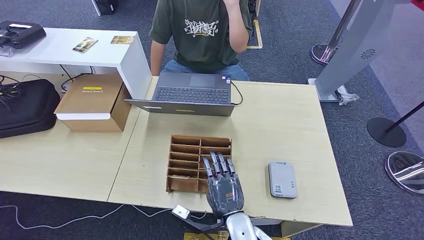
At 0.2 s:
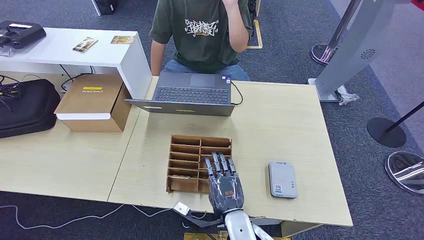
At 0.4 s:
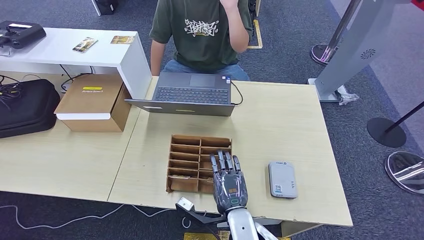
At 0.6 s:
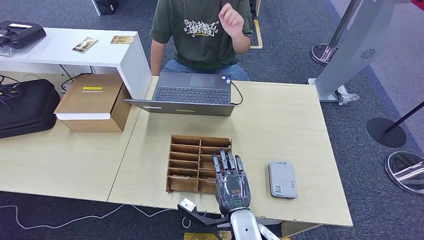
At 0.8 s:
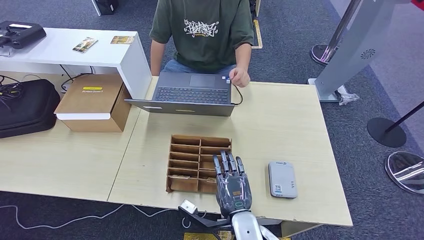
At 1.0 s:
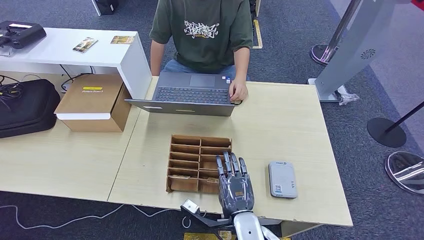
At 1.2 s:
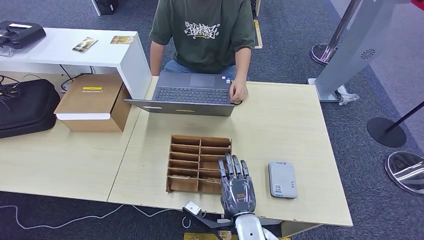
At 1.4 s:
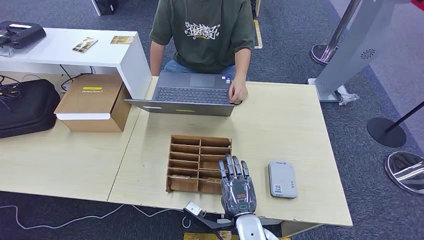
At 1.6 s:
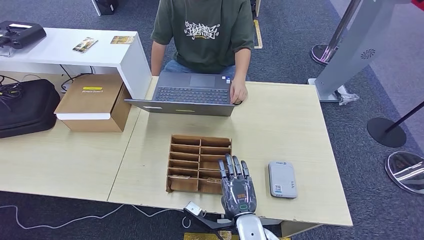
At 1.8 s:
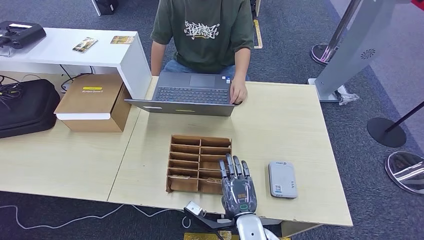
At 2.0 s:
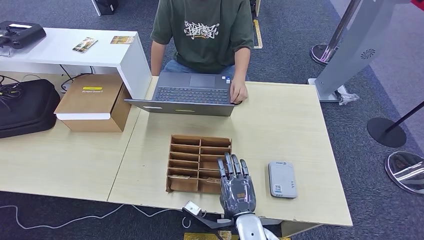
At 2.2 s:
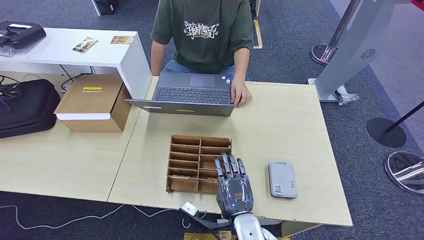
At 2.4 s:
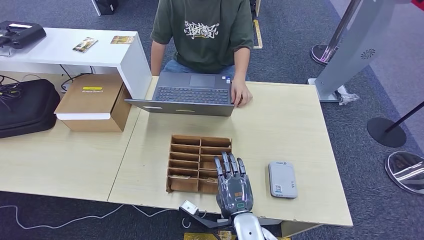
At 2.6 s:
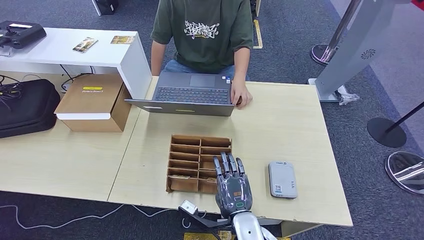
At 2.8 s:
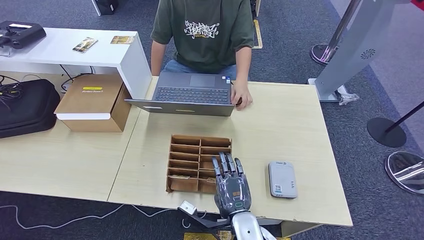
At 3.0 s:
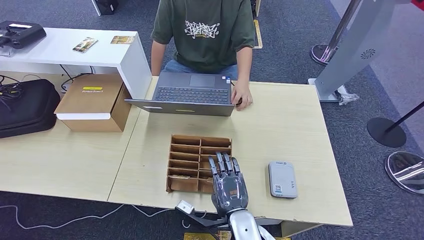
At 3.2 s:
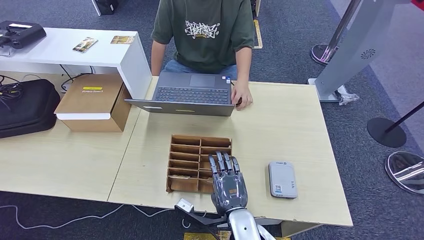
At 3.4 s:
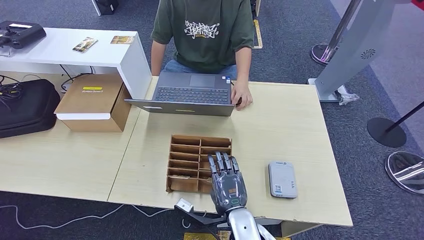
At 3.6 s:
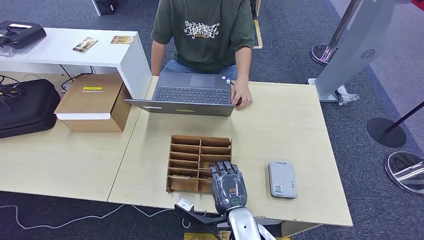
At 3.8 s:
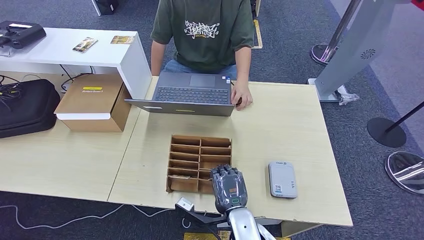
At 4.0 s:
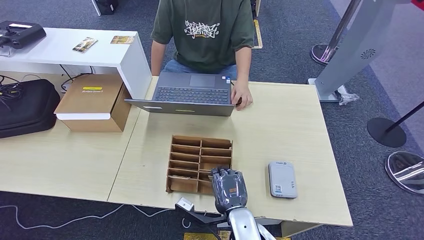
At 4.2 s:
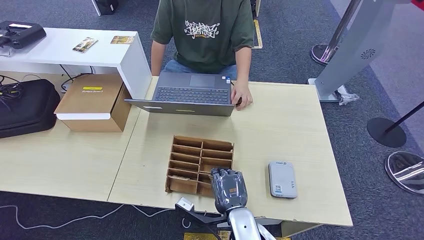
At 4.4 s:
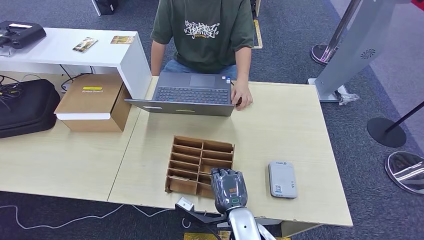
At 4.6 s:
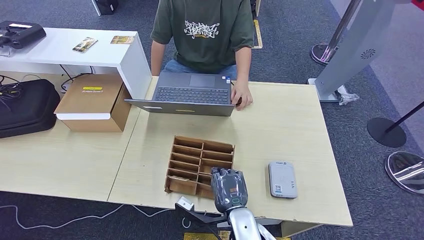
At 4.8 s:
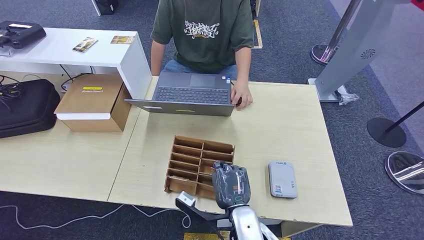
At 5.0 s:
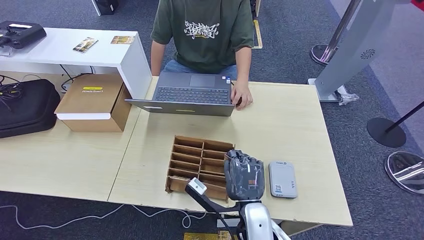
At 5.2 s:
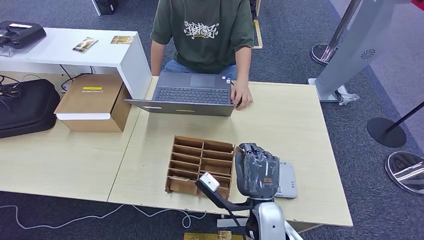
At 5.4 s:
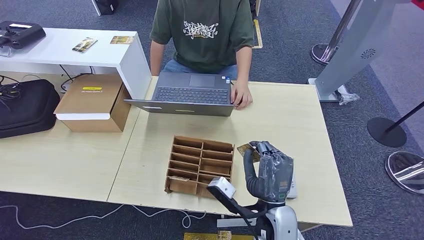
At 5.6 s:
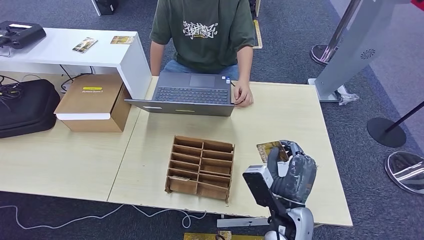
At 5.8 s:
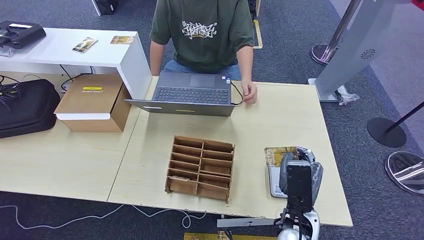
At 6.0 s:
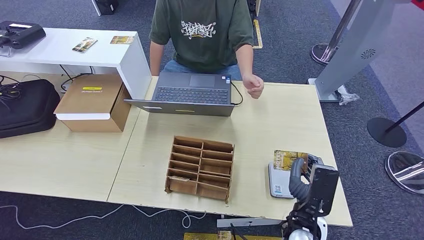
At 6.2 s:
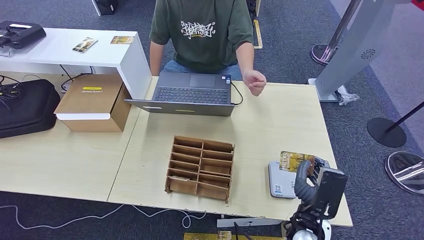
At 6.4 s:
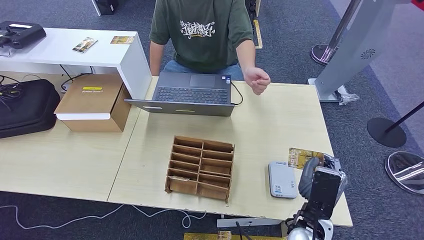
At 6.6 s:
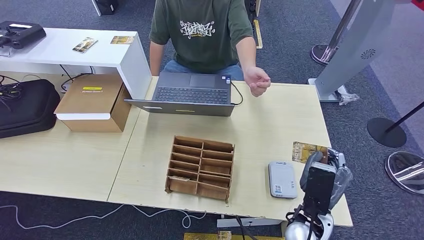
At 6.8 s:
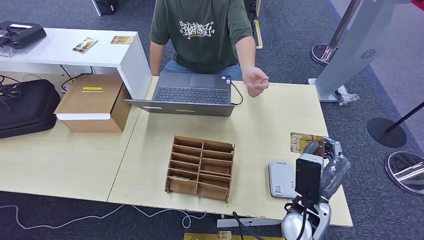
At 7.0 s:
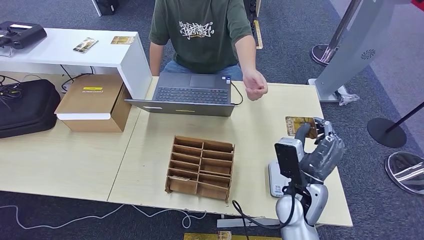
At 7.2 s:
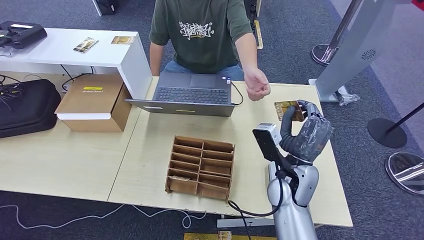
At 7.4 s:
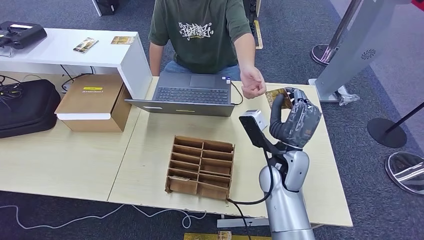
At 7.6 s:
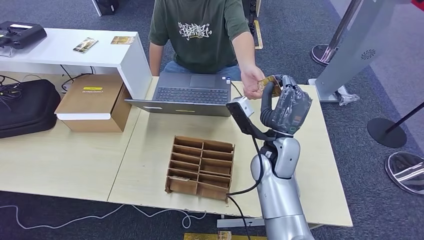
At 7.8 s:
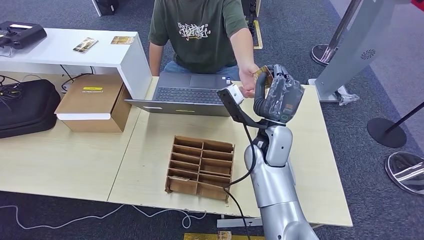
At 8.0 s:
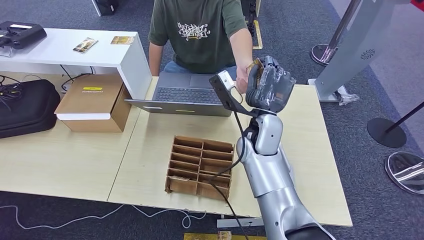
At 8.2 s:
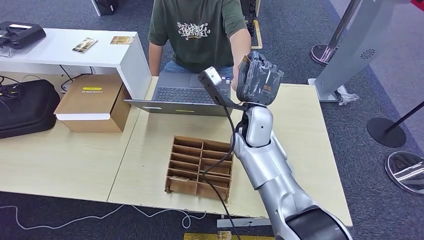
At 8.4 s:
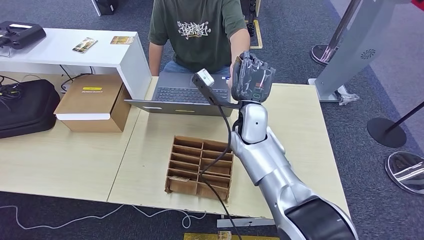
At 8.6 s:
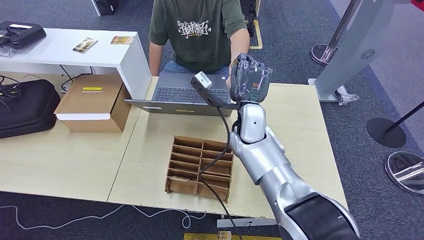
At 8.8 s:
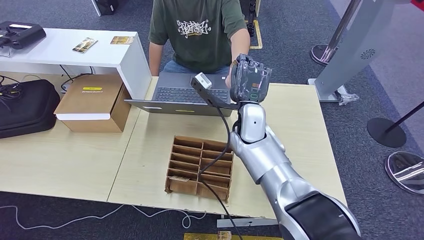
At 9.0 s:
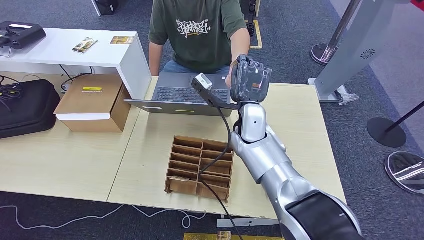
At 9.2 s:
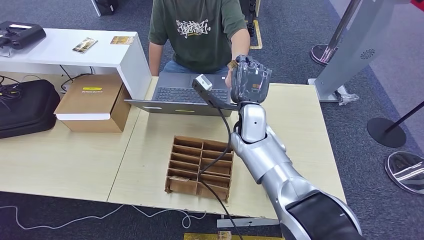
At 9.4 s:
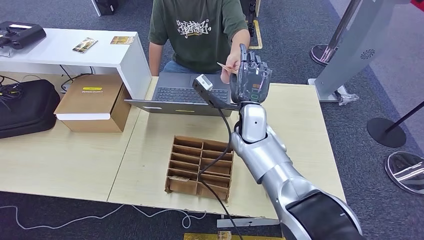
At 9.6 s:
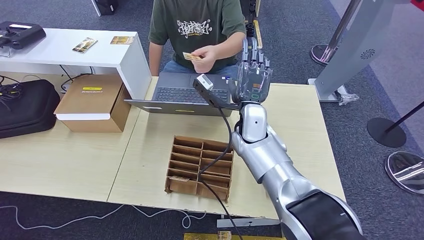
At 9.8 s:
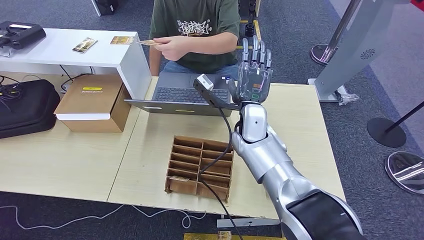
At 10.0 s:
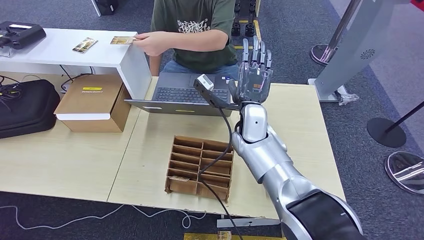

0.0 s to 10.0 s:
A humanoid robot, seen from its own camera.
Step, 0.0 to 4.8 s: Pick up the room key from the key card box.
Step, 5.0 to 10.0 s: Hand the room key to the person.
0.0 to 1.4 s: The hands stay close to where they were, moving slightly.
1.4 to 2.8 s: Both hands stay about where they are.
2.8 to 4.2 s: Both hands stay about where they are.
4.2 to 5.8 s: The right hand moves to the right and upward, about 10 cm.
5.8 to 7.2 s: The right hand moves forward, some 10 cm.
7.2 to 8.6 s: The right hand is displaced forward, to the left and upward by approximately 15 cm.
8.6 to 10.0 s: The two hands keep their place.

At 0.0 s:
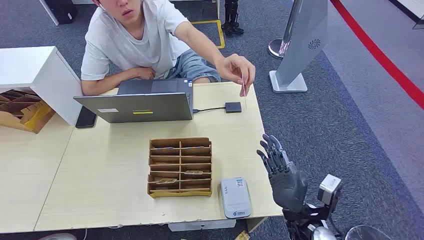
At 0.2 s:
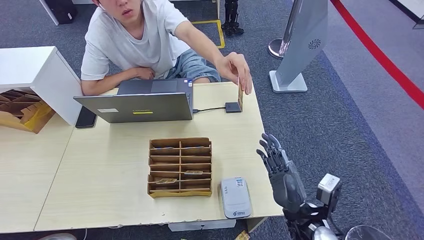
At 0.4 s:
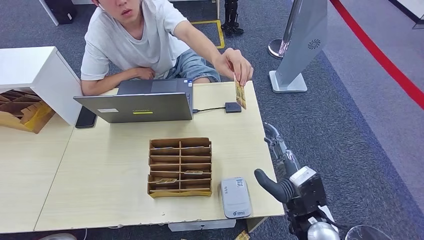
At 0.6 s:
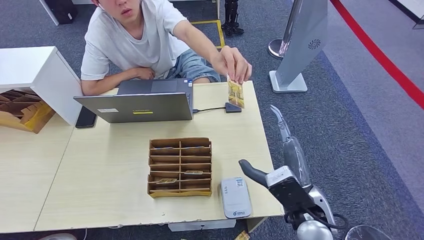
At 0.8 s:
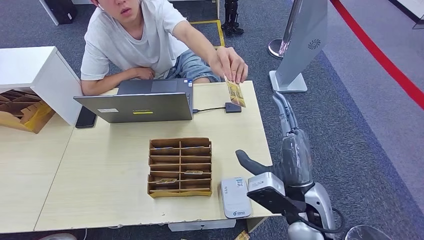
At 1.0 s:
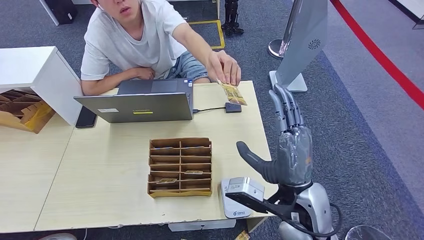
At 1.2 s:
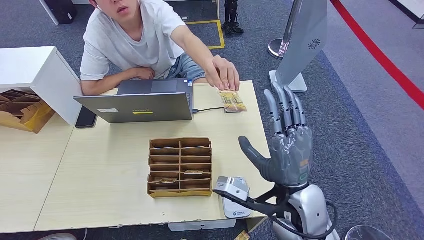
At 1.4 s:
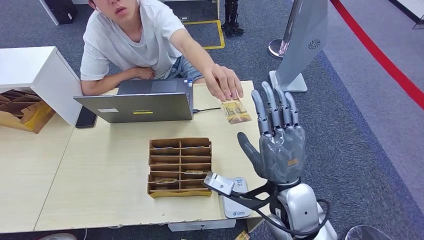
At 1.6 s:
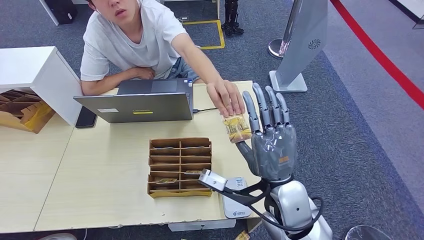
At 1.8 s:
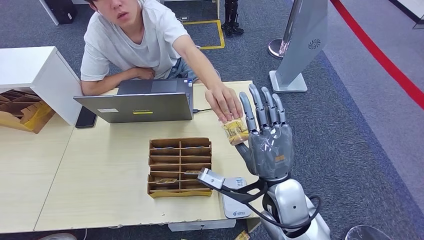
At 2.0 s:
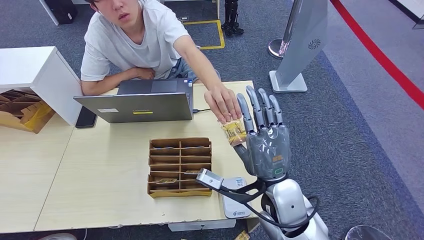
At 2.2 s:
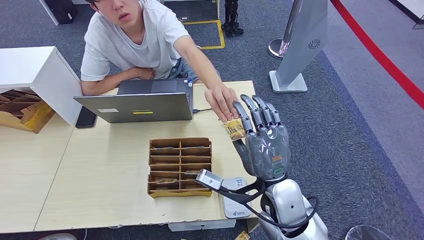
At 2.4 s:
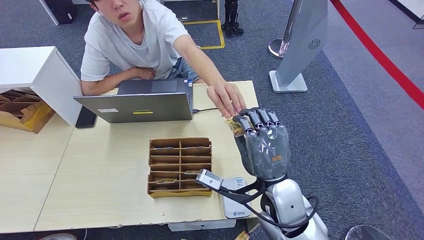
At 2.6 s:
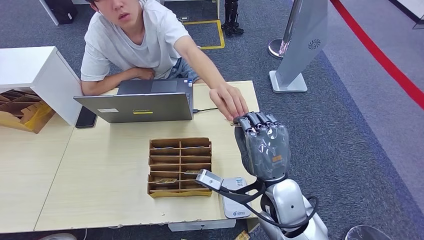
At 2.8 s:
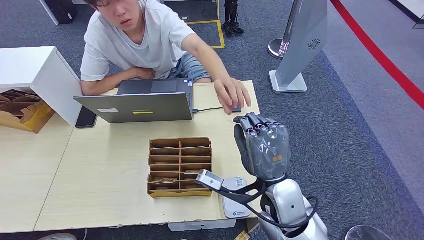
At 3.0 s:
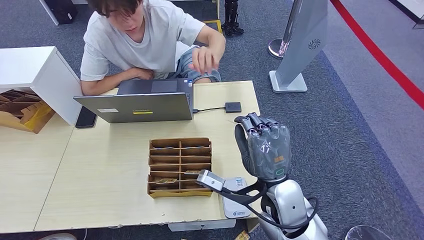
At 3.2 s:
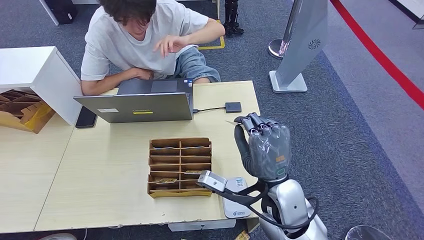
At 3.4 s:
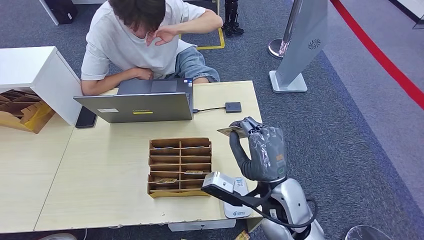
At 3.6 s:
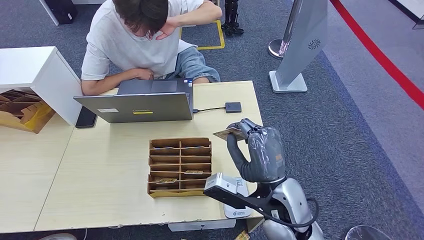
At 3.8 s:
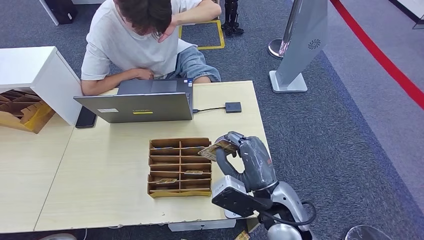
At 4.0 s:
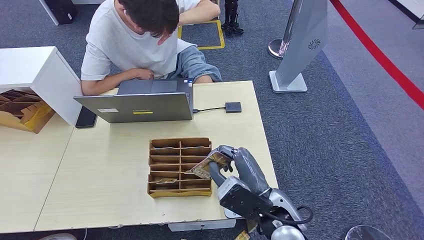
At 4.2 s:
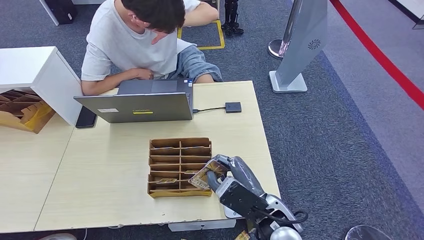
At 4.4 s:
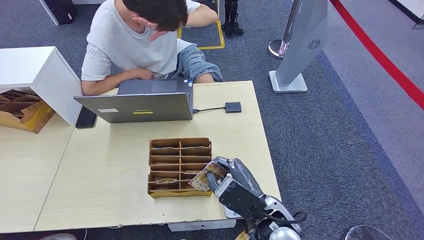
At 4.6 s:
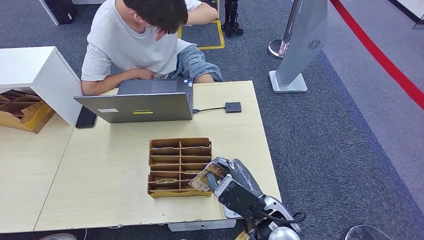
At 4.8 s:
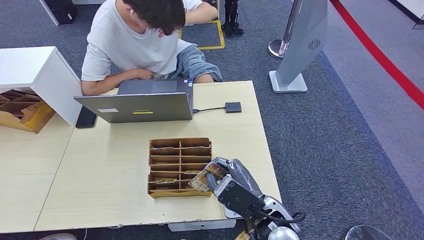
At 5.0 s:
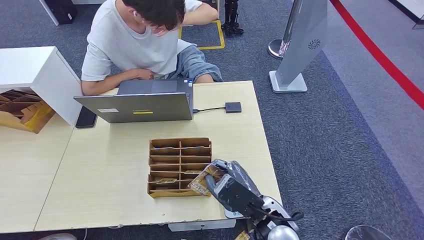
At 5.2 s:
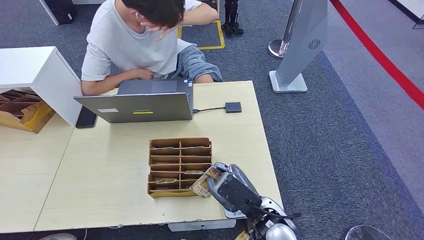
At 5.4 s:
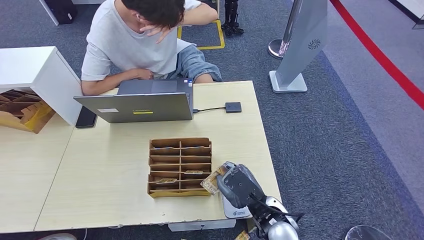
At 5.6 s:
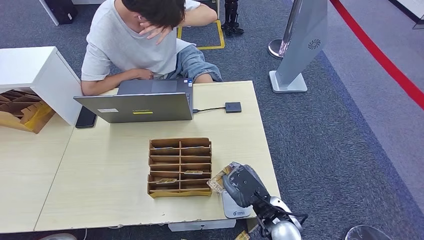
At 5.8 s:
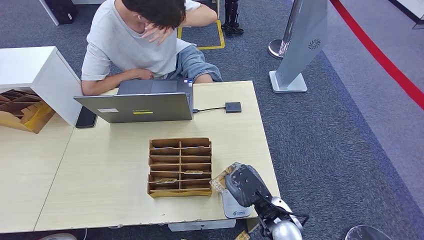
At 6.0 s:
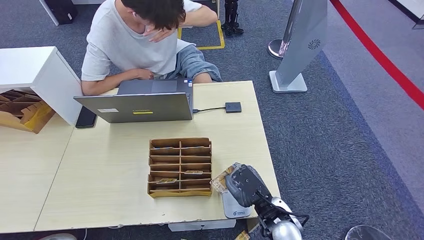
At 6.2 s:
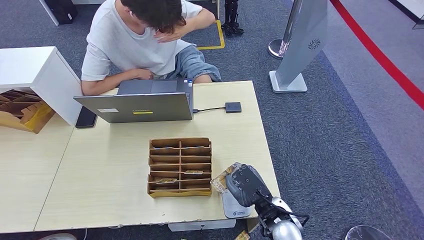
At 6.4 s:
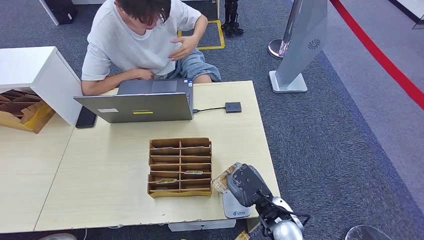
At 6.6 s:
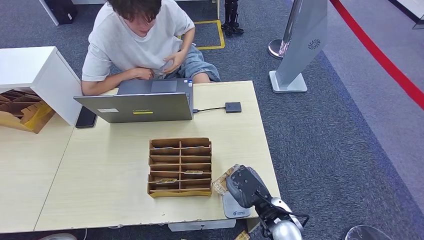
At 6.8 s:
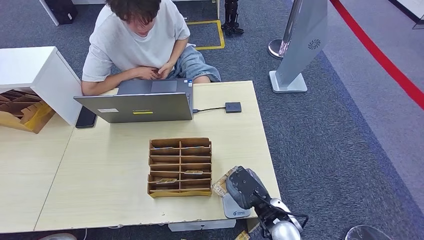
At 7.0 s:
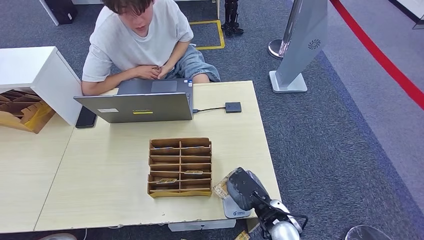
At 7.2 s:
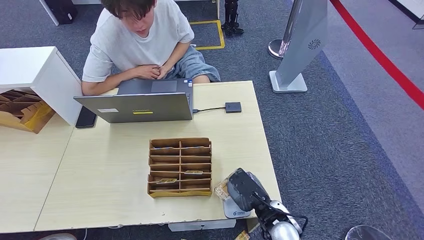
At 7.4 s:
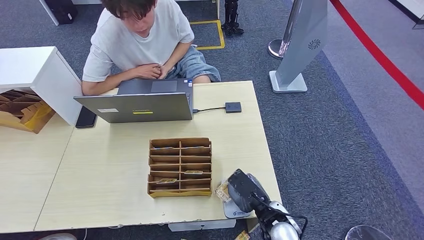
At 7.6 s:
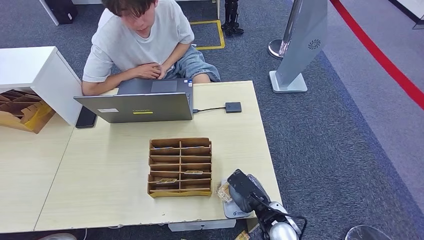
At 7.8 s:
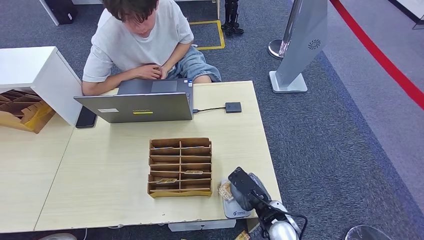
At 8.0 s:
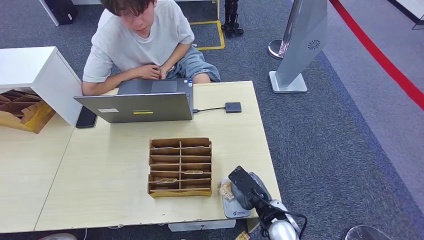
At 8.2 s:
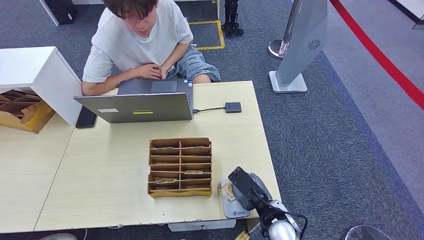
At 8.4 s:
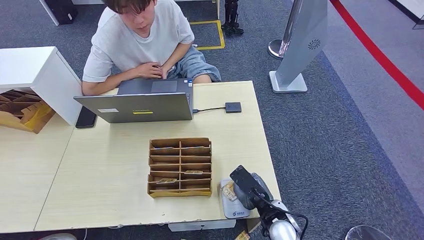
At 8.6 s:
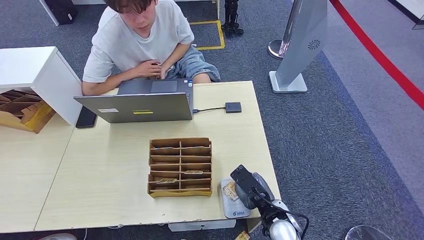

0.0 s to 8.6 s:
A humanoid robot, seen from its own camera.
Step, 0.0 to 4.2 s: Take the ID card from the person's hand.
Step, 4.6 to 7.4 s: Place the ID card on the card reader.
1.4 to 2.8 s: The hands make only small movements.
2.8 to 4.4 s: The right hand ends up approximately 5 cm from where it was.
4.4 to 5.8 s: The right hand is displaced downward by some 5 cm.
5.8 to 8.6 s: The hands make only small movements.
